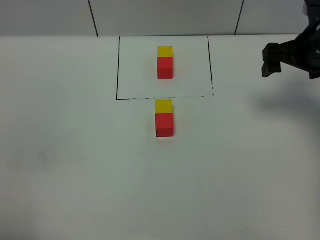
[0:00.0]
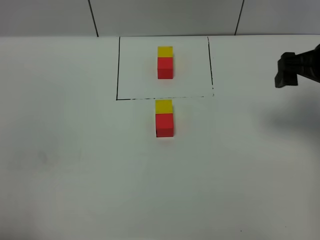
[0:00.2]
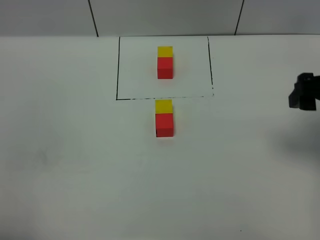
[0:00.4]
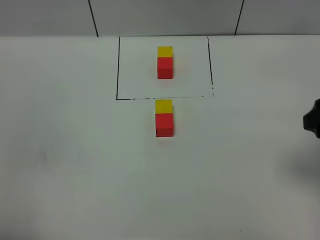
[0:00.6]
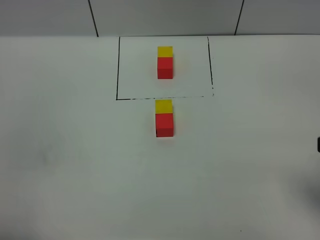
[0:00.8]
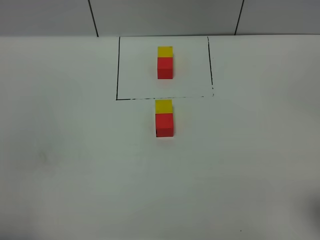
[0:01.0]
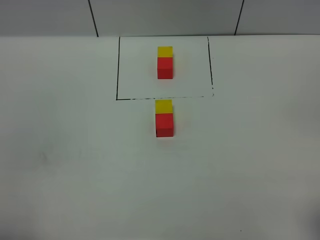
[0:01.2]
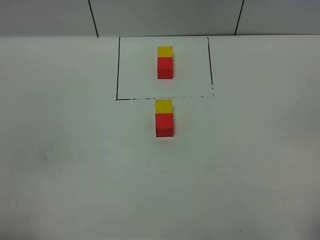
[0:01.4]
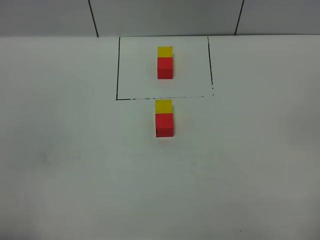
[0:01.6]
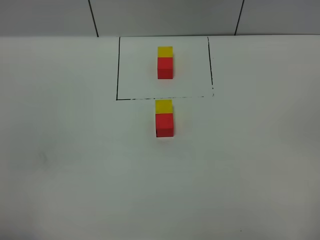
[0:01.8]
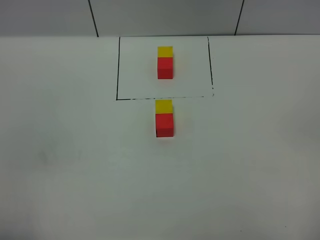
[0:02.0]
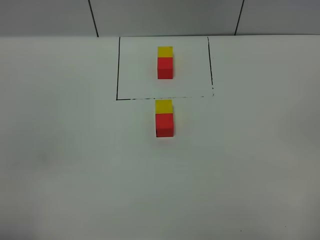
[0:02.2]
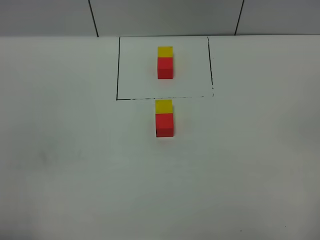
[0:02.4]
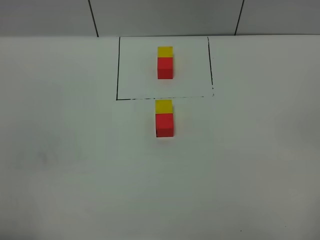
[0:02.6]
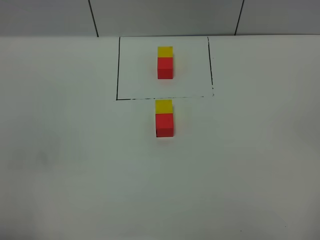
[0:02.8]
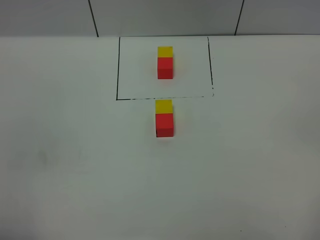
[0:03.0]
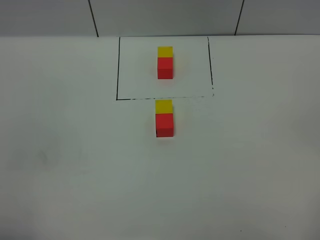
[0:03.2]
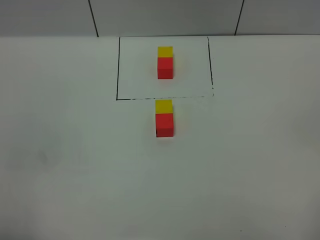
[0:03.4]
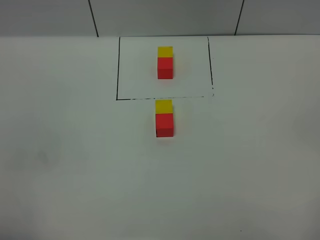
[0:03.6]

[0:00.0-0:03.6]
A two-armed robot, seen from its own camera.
Task of the whole recording: According to the building block template in front, assemble the scattered blocks together.
0:00.0 to 0:01.8: The right gripper heads backward, covering some 35 cm.
0:01.8 to 0:03.6: Both grippers stay put.
